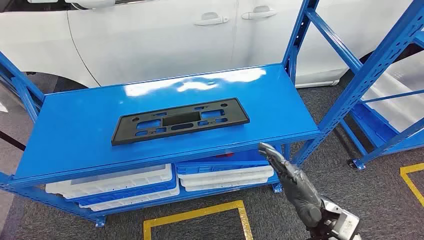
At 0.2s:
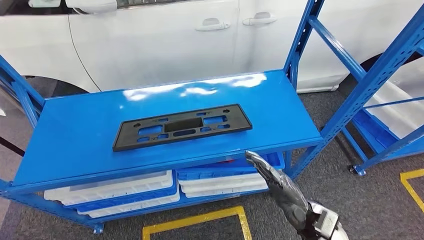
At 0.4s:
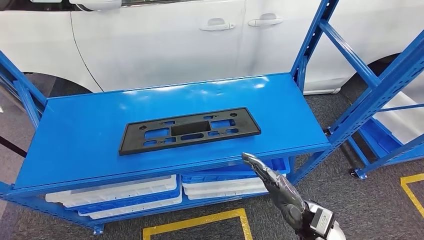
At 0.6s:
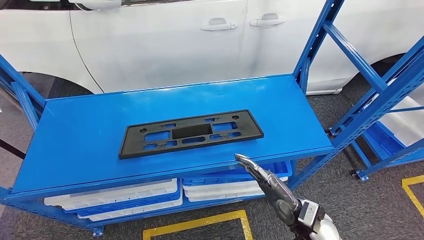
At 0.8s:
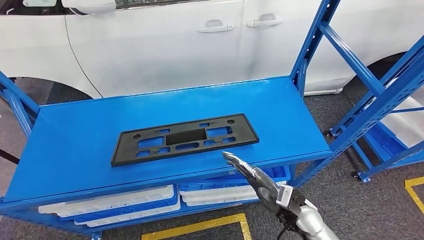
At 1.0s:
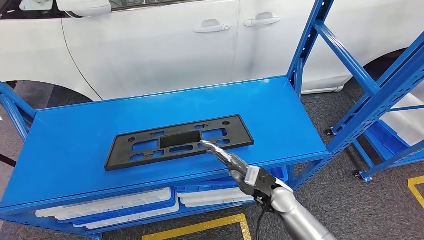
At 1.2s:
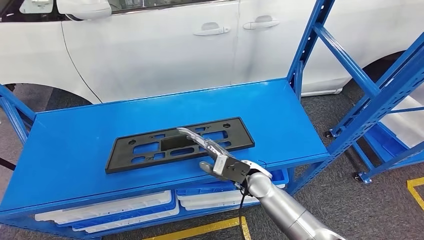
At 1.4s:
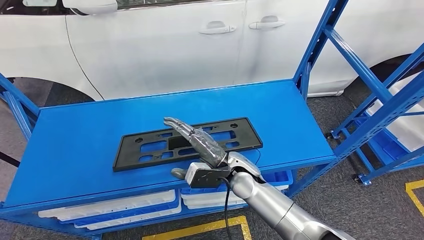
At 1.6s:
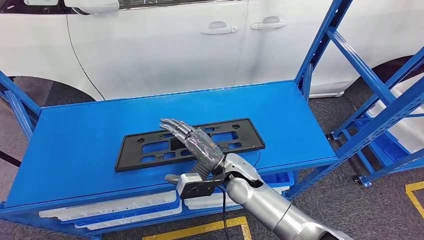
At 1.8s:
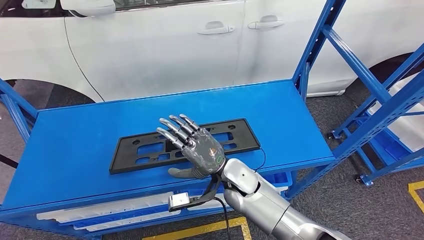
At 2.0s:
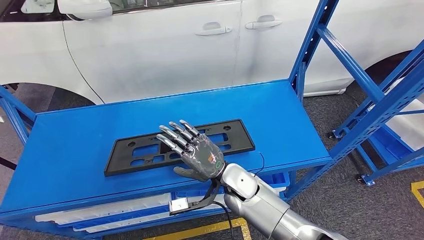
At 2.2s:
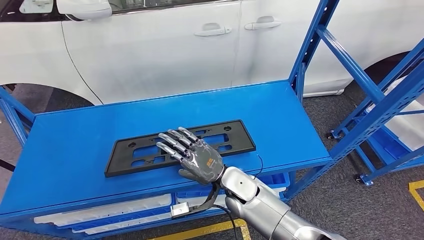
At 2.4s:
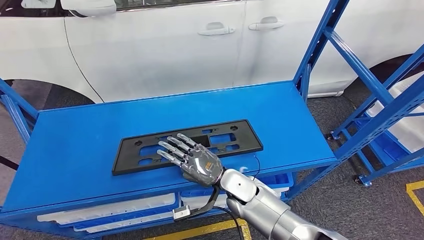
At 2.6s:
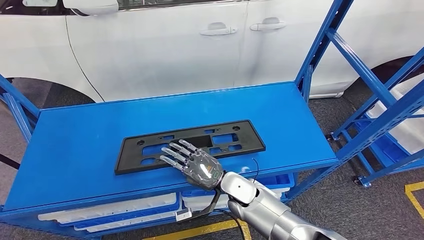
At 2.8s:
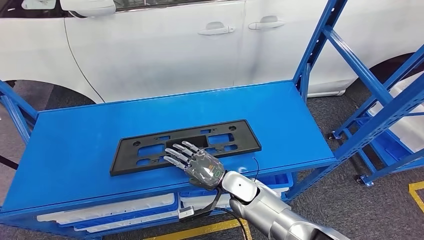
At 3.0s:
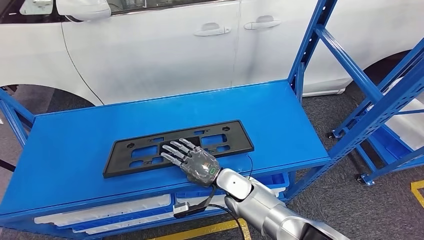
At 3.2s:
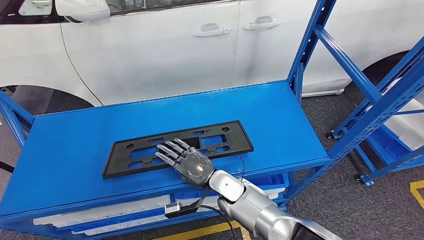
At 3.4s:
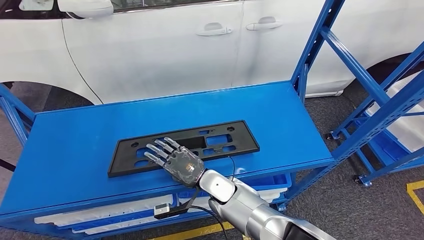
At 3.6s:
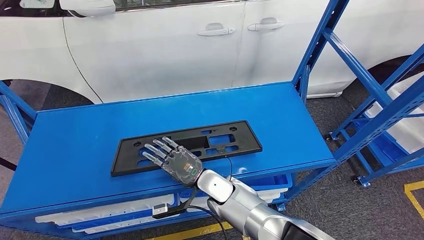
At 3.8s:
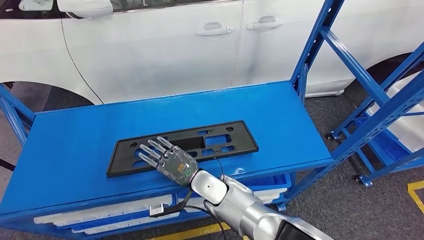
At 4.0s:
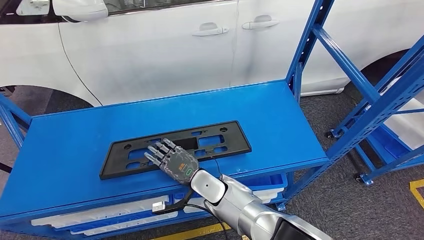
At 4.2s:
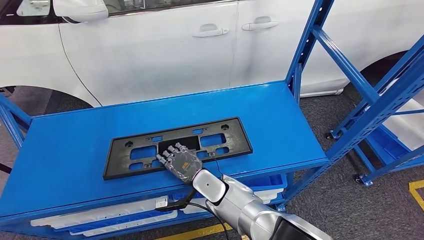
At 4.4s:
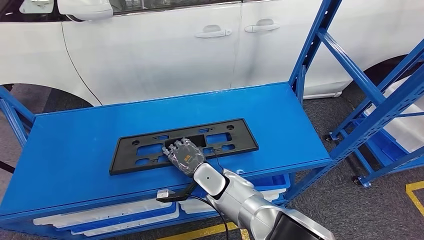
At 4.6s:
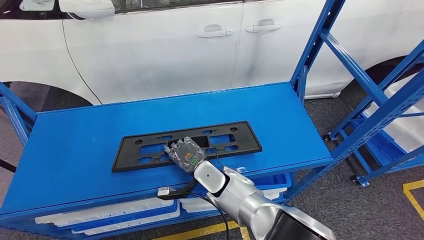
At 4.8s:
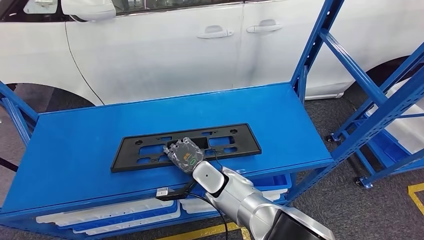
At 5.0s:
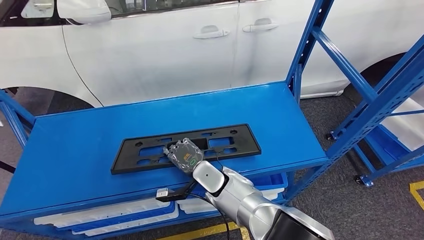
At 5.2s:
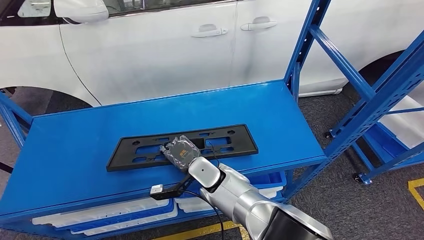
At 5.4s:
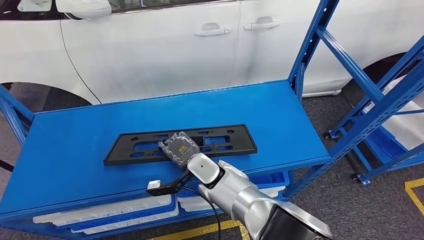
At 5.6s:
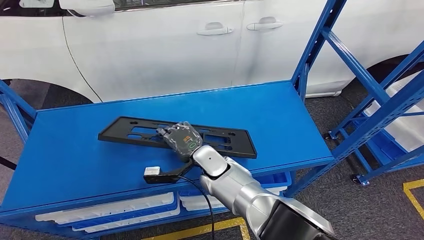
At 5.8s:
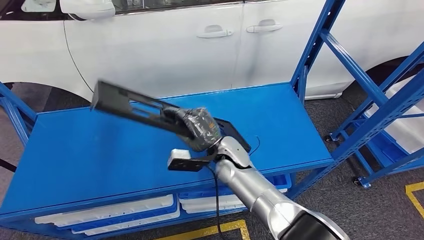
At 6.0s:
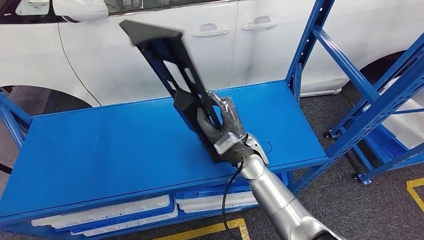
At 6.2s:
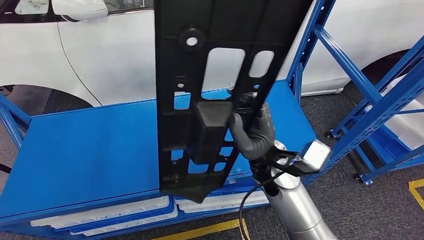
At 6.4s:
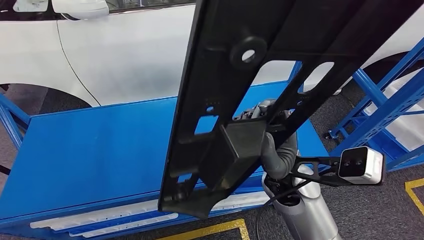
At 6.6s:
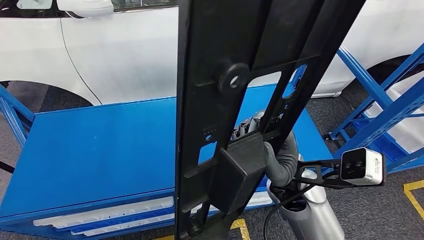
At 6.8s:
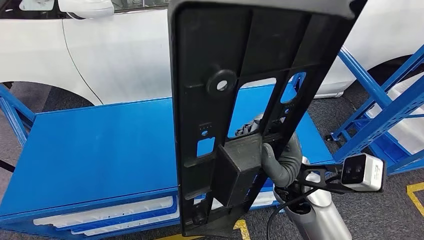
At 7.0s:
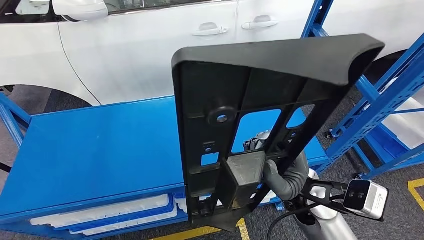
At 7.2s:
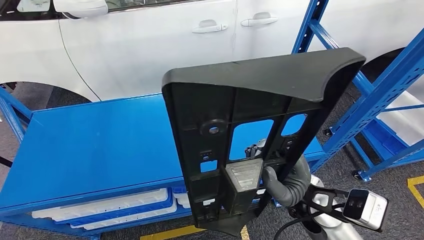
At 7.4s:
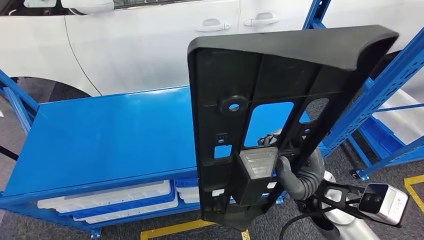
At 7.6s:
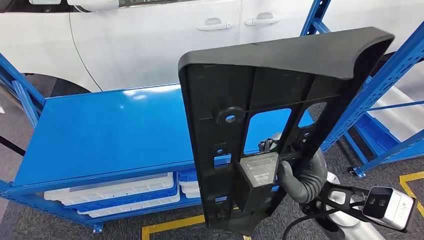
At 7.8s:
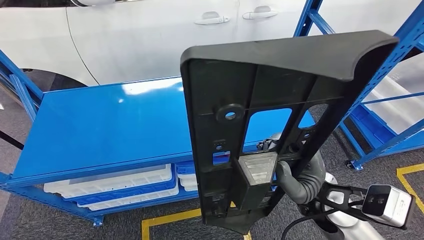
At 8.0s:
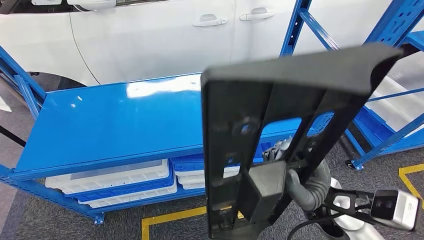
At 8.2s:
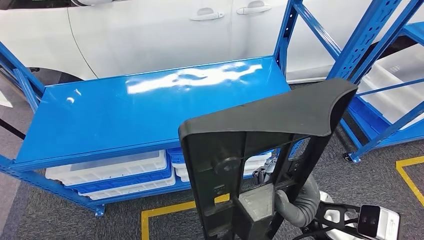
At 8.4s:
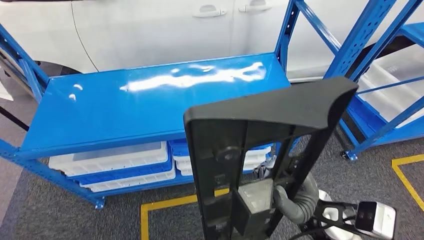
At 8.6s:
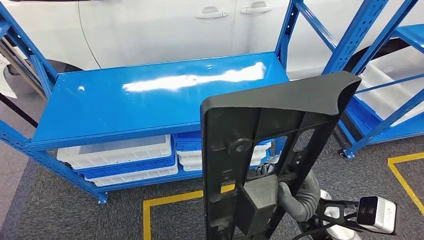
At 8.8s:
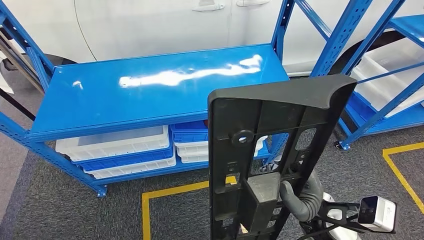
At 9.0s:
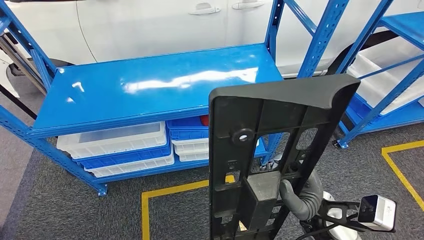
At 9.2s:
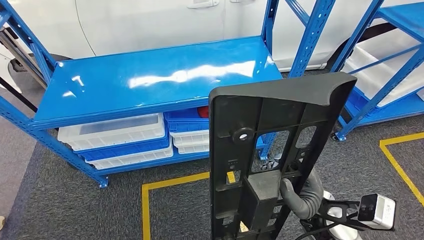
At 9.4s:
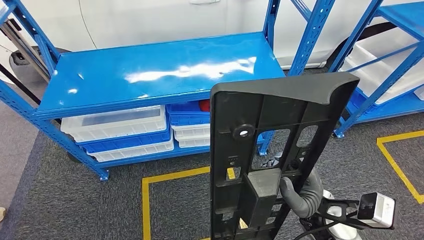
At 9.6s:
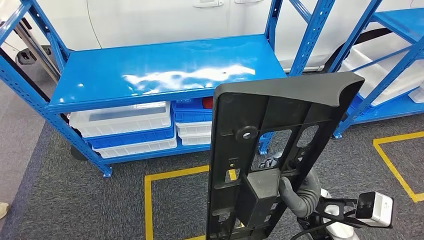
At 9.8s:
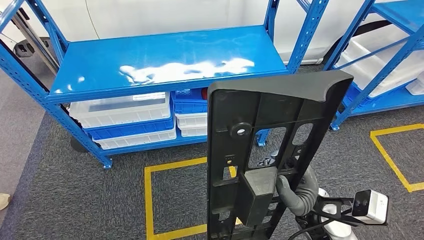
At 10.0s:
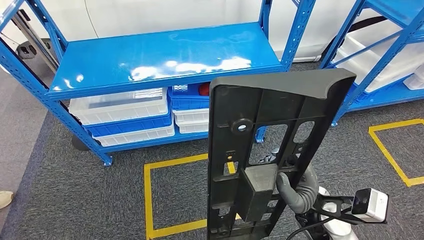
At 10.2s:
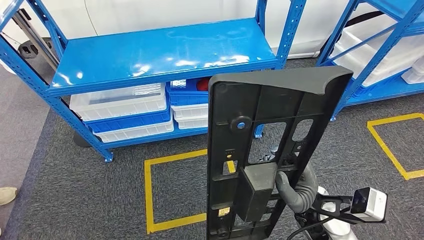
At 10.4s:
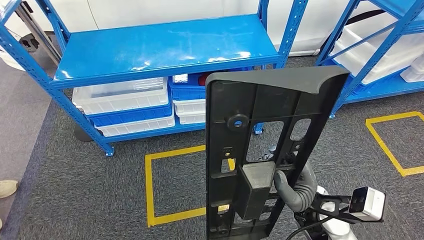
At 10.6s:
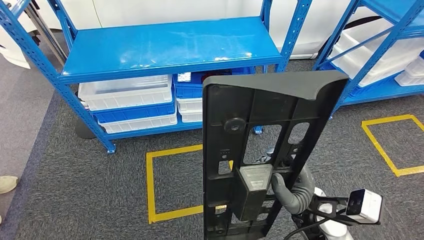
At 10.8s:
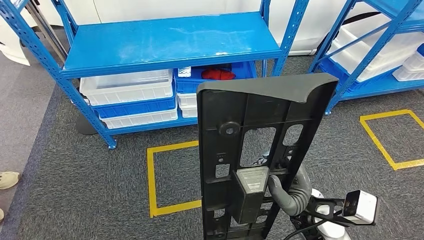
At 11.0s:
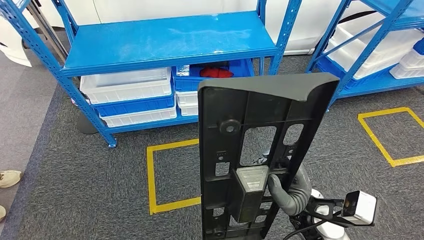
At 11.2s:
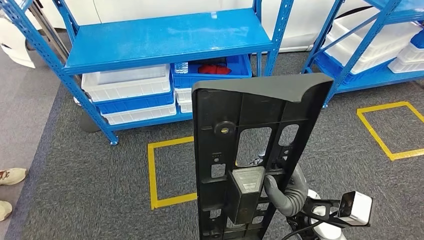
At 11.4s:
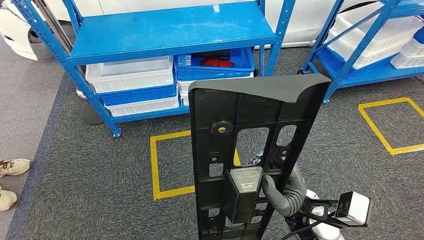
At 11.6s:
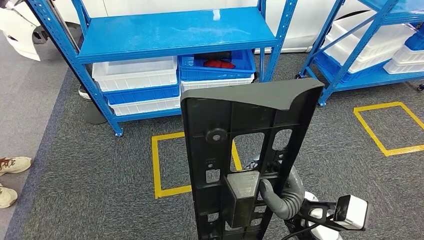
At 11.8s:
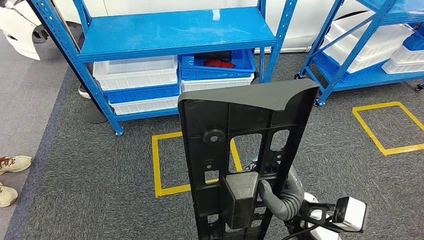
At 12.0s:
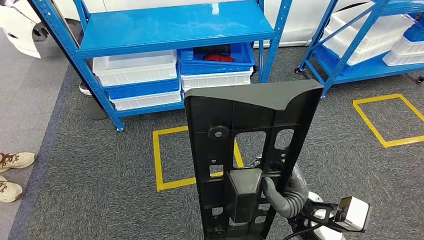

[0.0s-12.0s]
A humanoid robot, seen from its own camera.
Step, 0.0s to 7.6s: Pick up the large material from the shelf.
3.0s to 4.4s: The right hand is displaced to the left by some 5 cm.

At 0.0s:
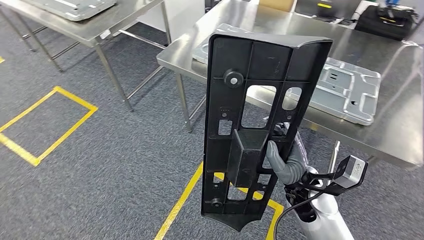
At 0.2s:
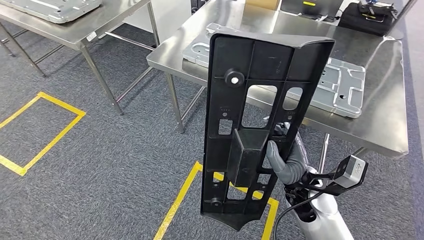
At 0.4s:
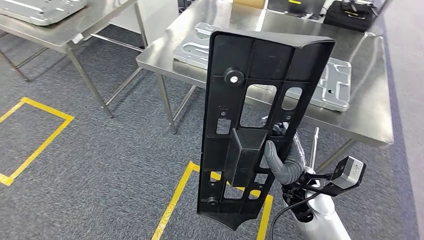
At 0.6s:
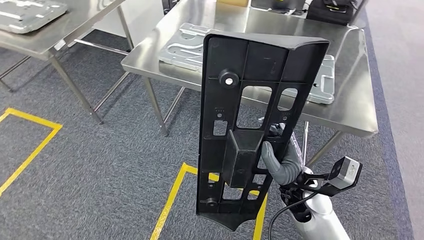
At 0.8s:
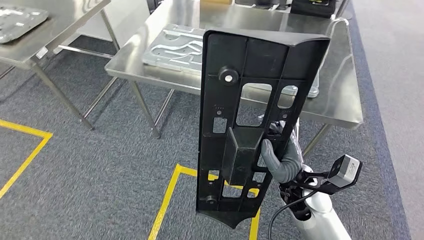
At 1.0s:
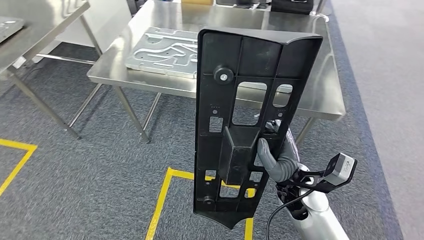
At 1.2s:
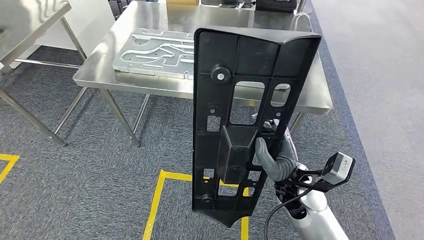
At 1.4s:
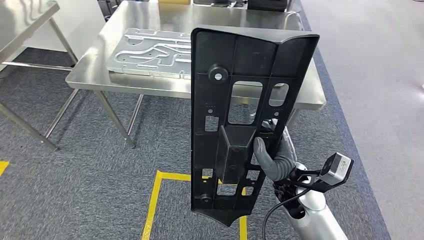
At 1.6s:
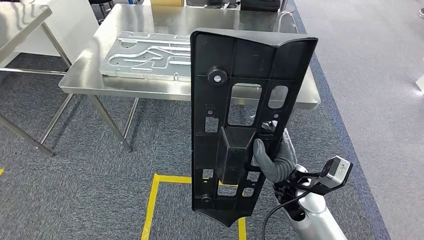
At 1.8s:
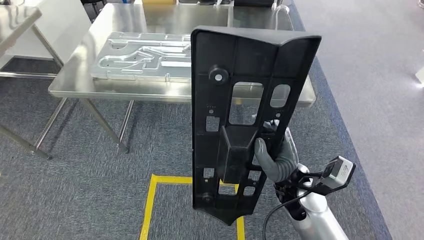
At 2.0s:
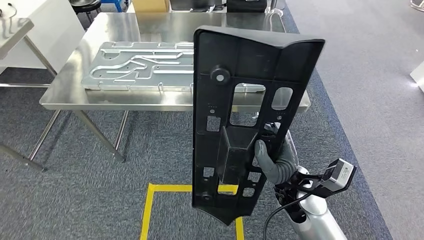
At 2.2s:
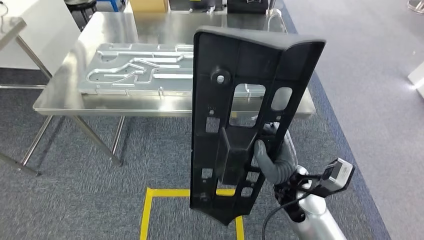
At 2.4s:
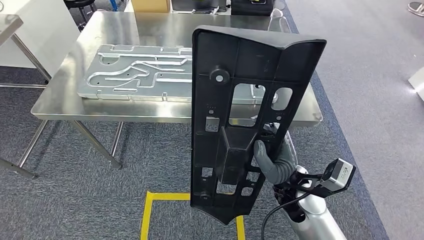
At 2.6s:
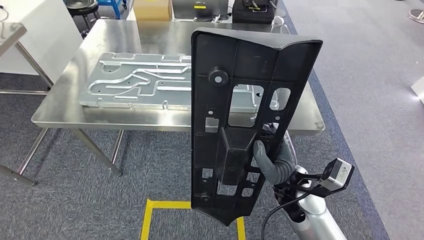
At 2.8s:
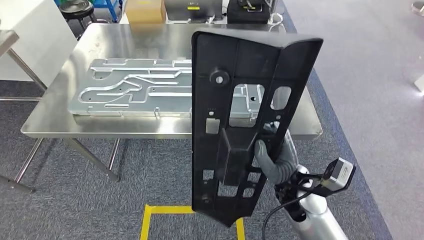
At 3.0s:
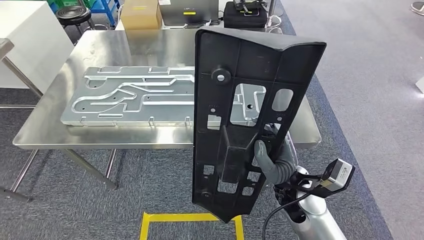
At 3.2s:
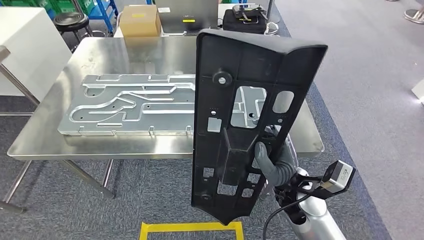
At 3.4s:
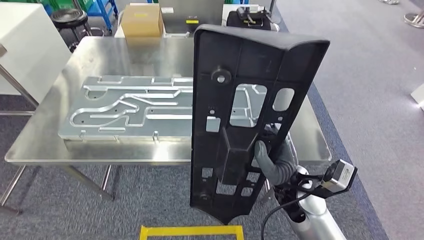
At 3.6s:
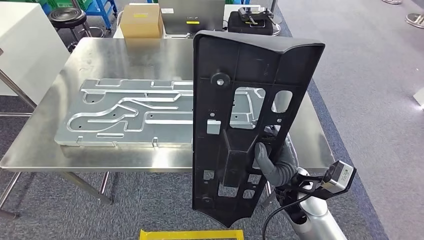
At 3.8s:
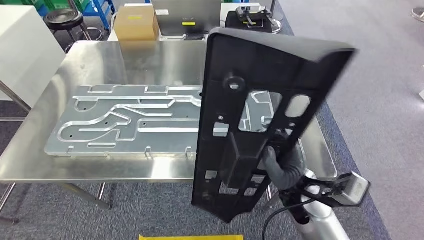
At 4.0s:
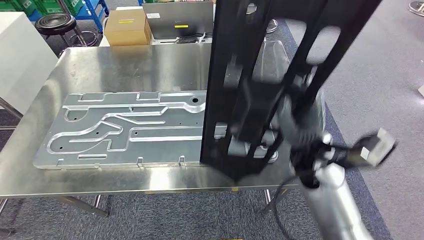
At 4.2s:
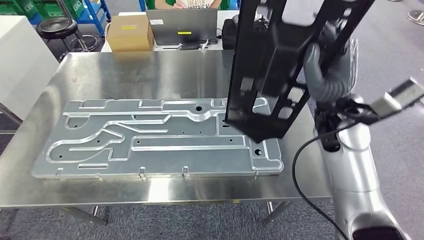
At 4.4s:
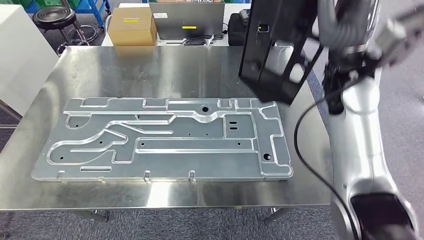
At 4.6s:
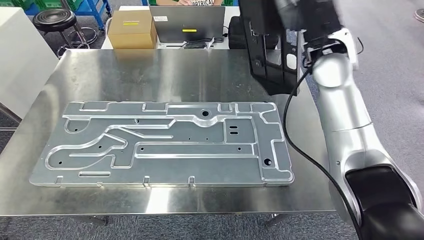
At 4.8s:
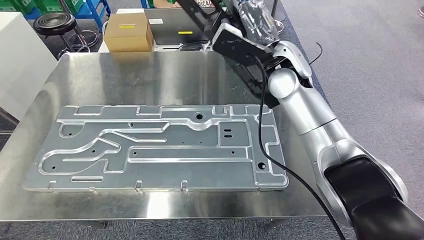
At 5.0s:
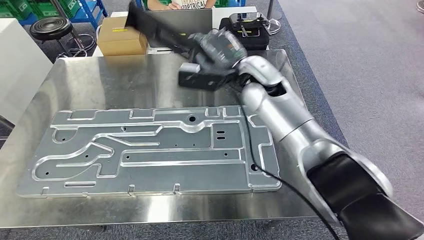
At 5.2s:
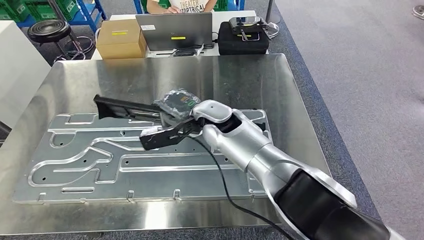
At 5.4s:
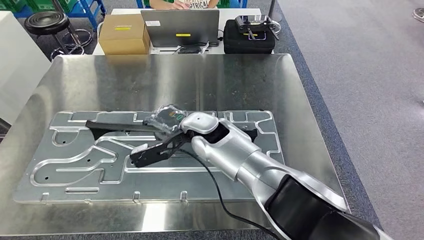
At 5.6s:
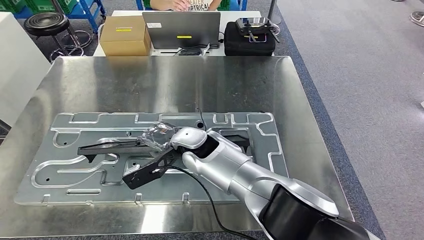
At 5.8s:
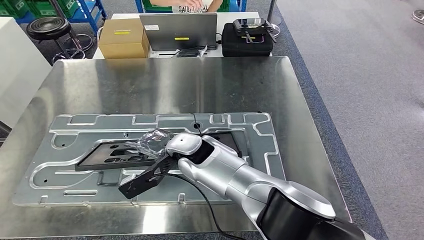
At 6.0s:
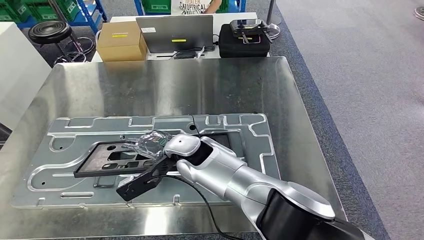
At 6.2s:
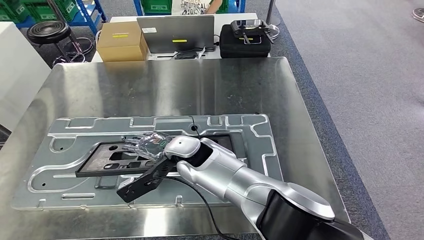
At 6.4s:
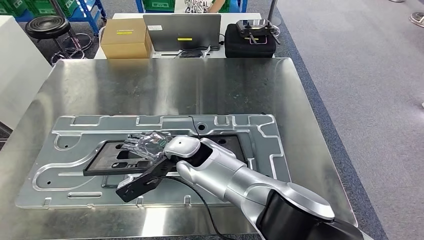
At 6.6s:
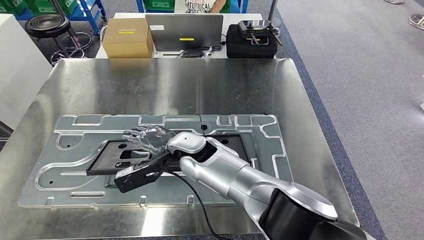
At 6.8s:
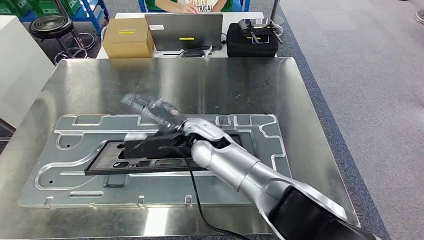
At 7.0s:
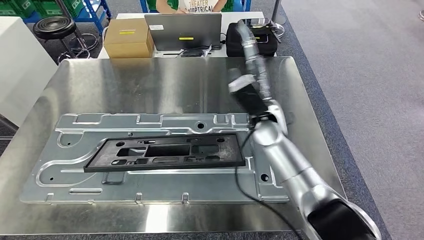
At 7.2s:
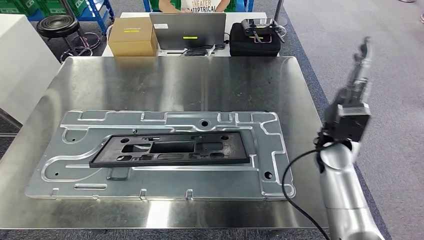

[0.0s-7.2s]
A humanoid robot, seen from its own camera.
Step, 0.0s to 5.2s: Move the large material to the workbench.
